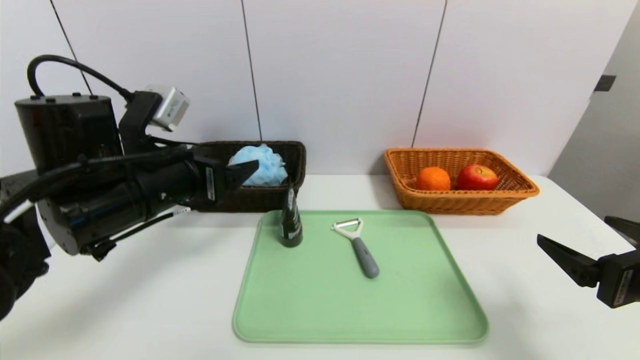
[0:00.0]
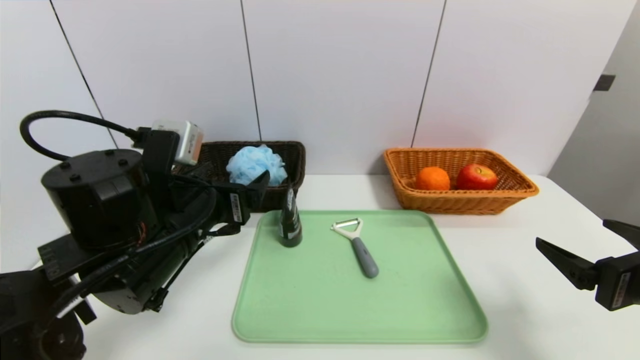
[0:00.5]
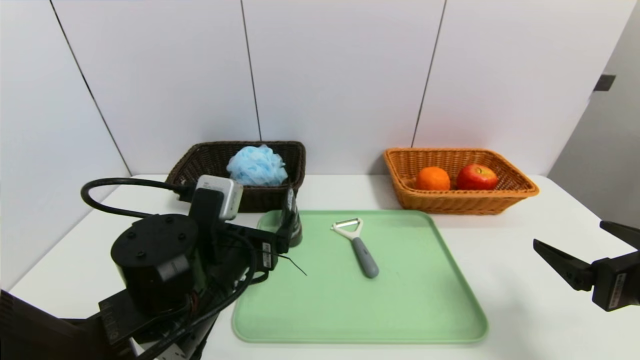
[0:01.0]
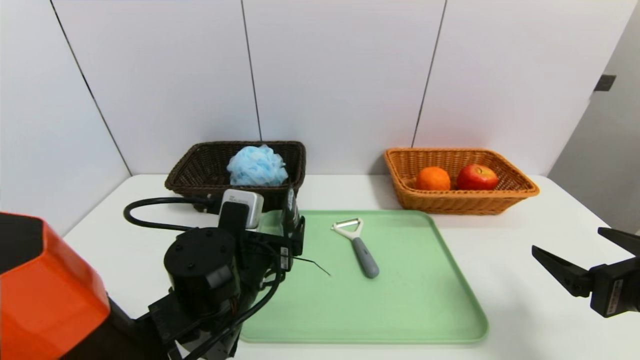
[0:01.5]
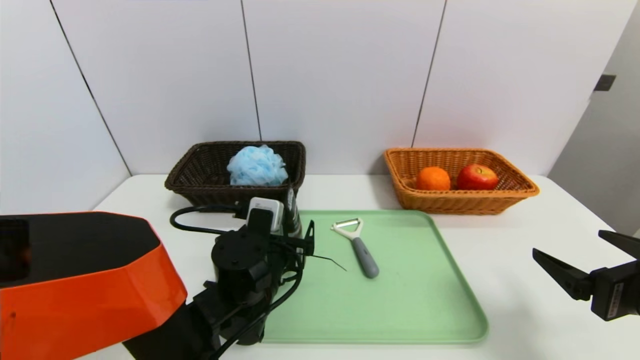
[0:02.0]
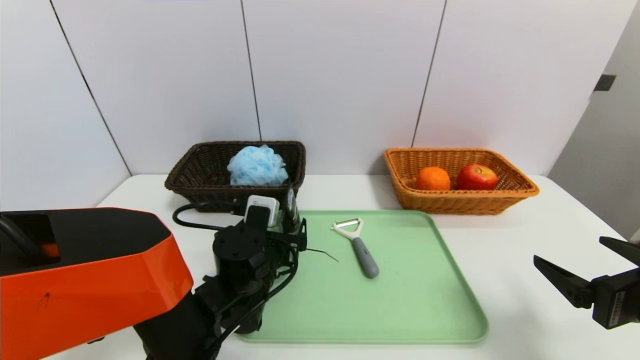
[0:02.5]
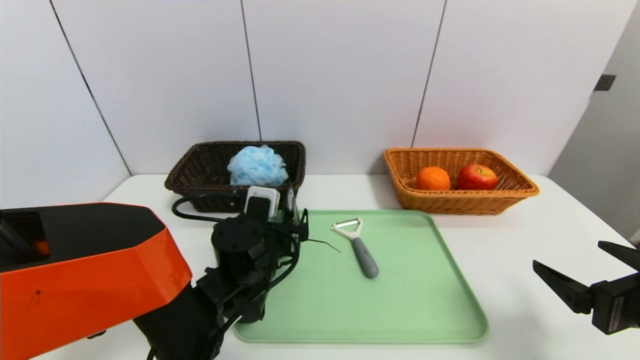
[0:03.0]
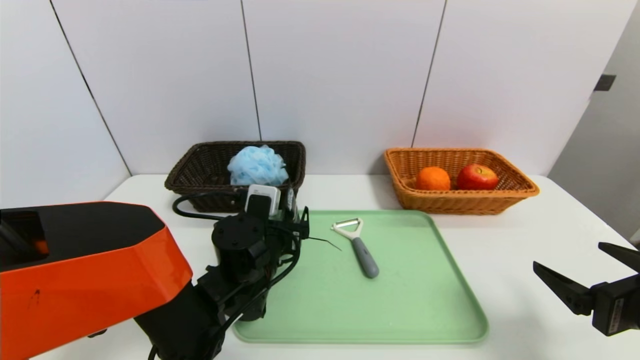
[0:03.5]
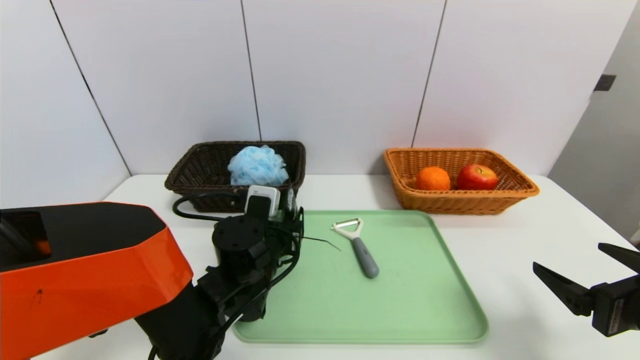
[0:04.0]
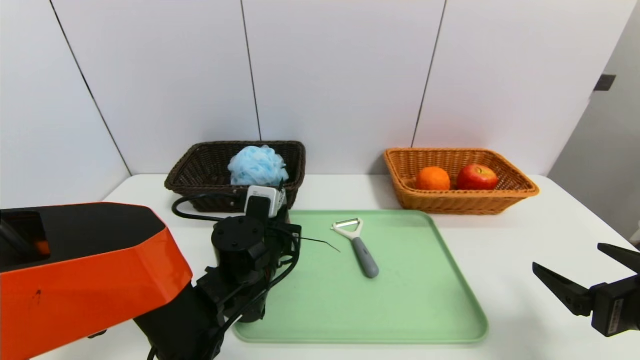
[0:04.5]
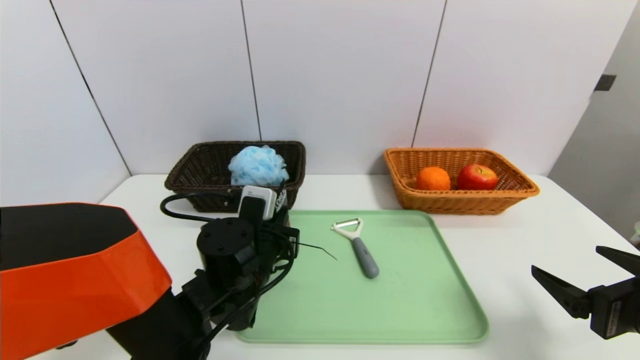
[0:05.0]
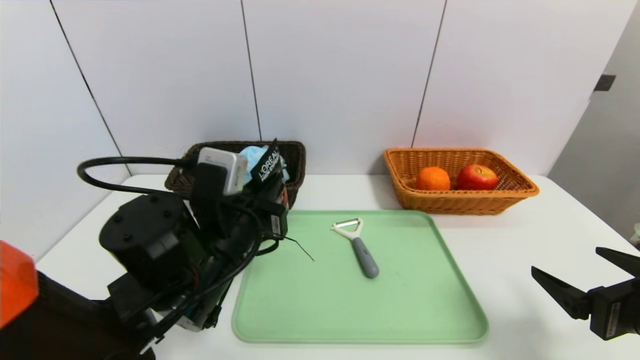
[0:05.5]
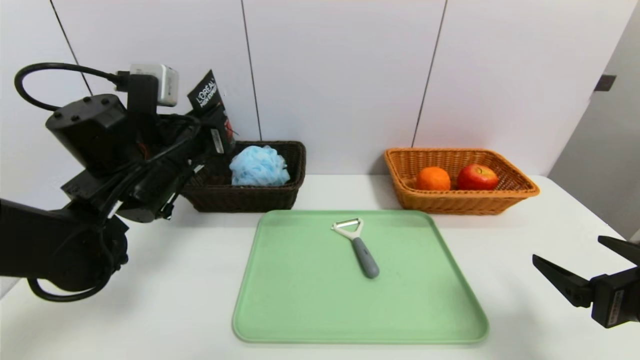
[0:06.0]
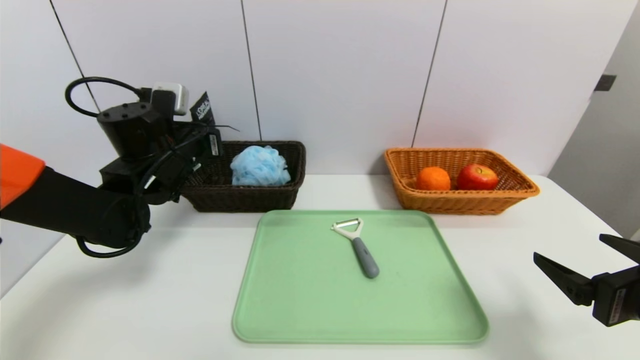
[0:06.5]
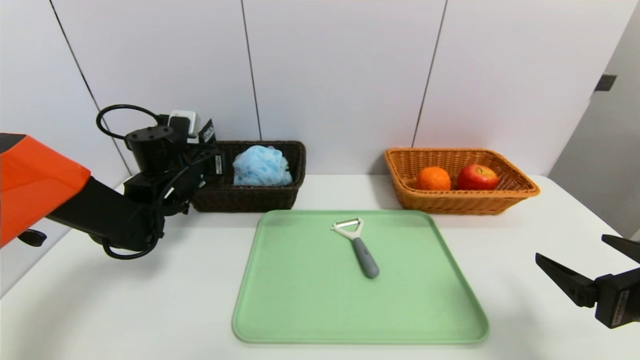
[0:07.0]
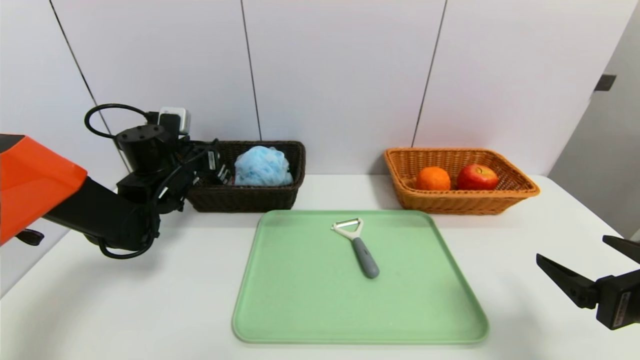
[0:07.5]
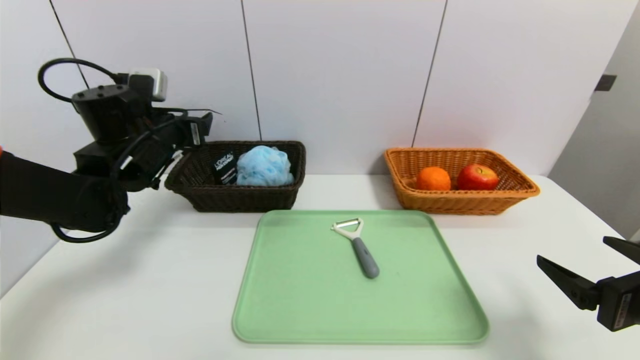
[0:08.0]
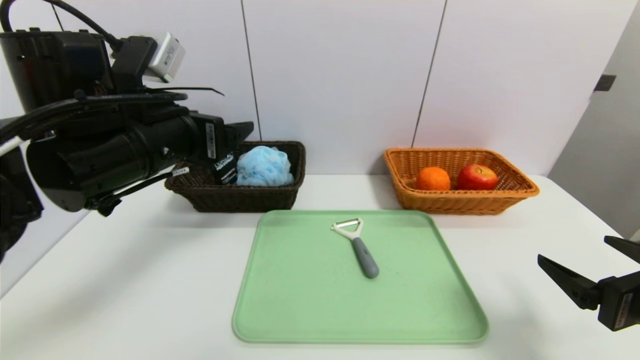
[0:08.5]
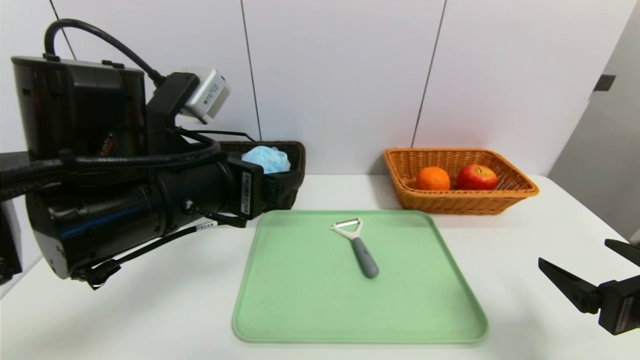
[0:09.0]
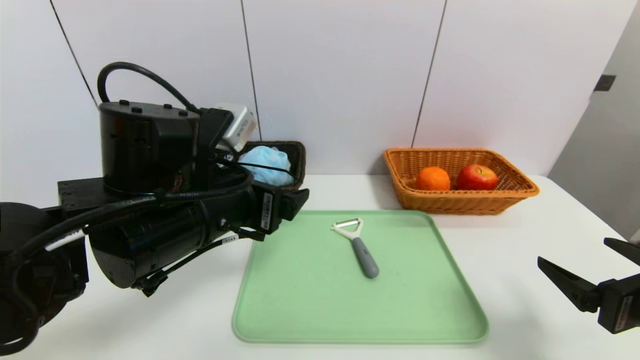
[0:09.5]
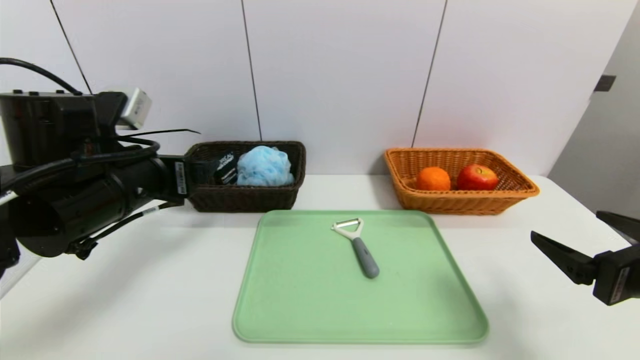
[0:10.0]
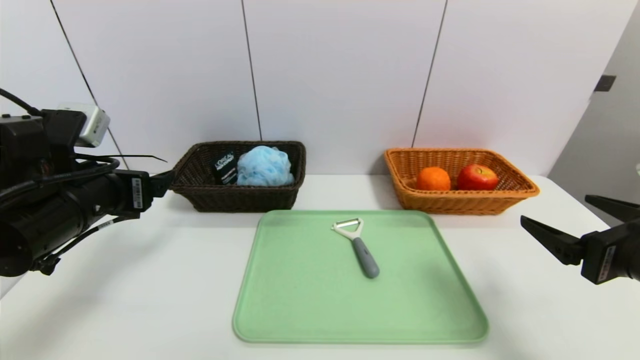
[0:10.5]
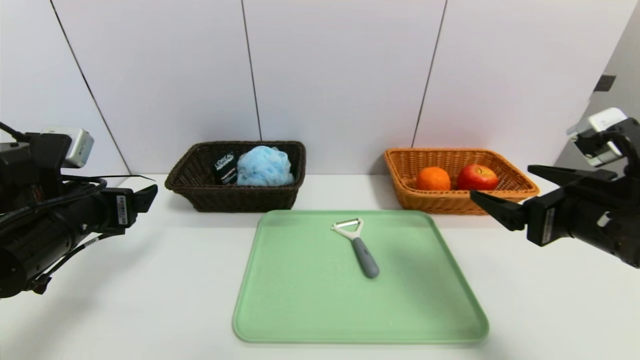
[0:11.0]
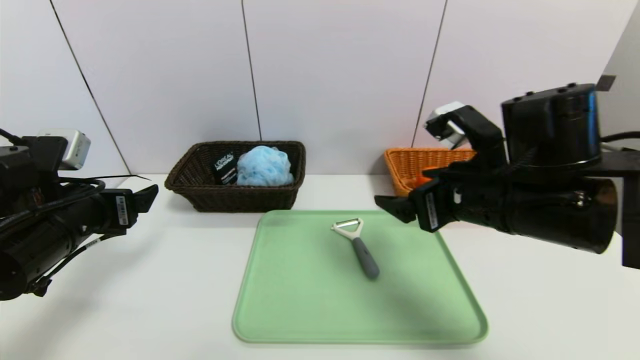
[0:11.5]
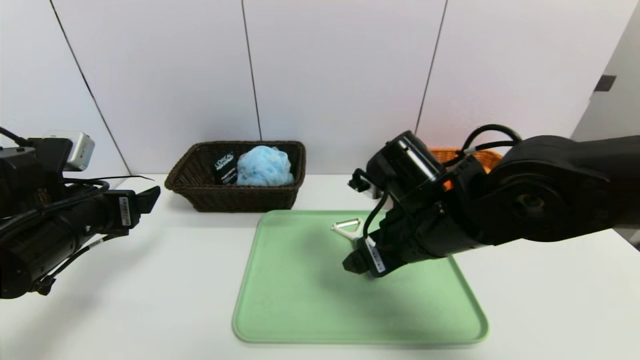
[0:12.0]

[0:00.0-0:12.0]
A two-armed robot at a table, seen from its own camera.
Task of the whole recording: place the food in the right basket with the right gripper, and place the non food items in the left basket with the left gripper.
Step, 0:00.0 to 0:08.0: Grasp the soft cleanser and put it in the left basket.
0:00.0 to 0:02.0: The left gripper travels downward and to the right by some 20 cm.
0:02.0 to 0:04.0: The grippers make only small movements.
0:04.0 to 0:06.0: The left gripper moves upward and to the left, roughly 20 cm, and closes up.
0:06.0 to 0:08.0: The left gripper moves forward and to the left, about 5 cm, and opens its fingers.
0:08.0 to 0:10.0: The left gripper goes approximately 10 cm backward.
0:10.0 to 0:12.0: The left gripper moves to the left, about 5 cm, while the right gripper heads to the left and forward, covering approximately 25 cm.

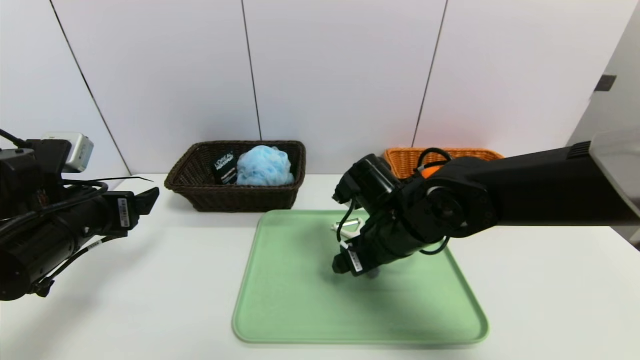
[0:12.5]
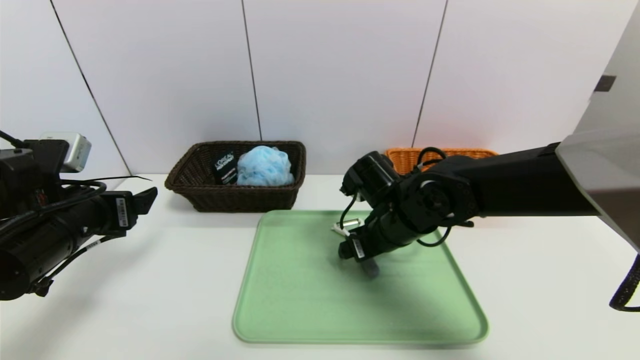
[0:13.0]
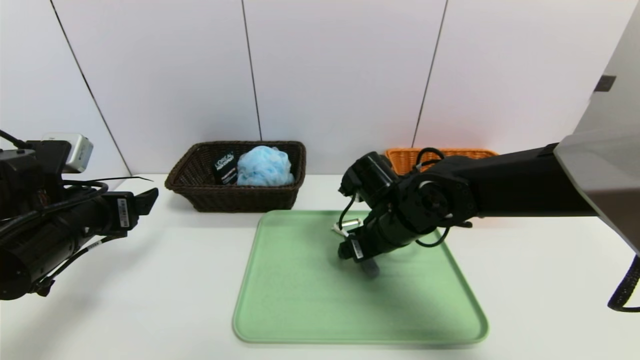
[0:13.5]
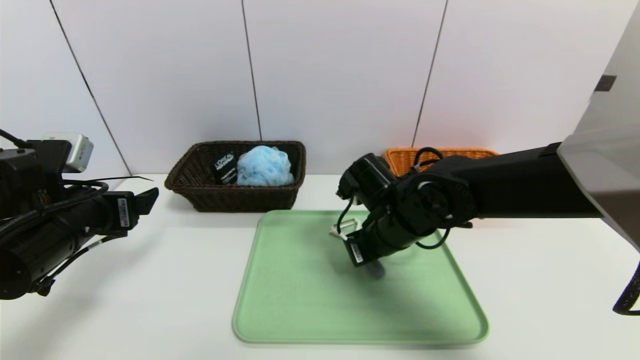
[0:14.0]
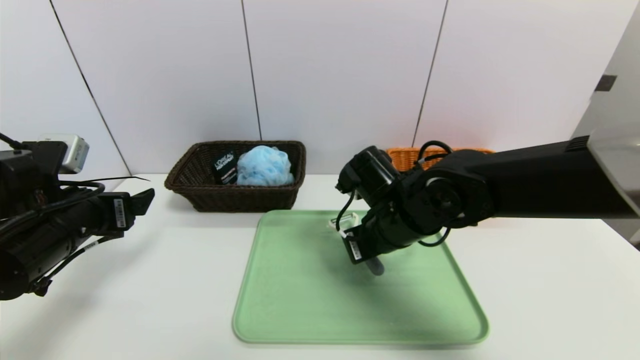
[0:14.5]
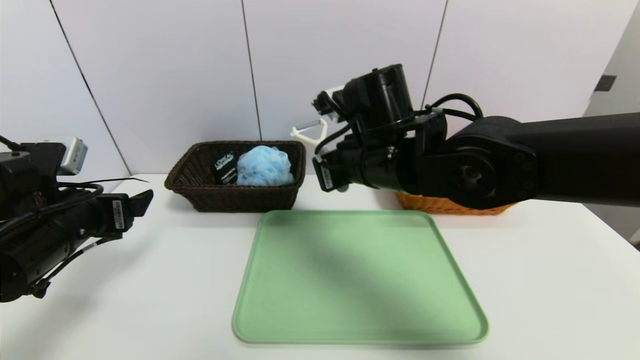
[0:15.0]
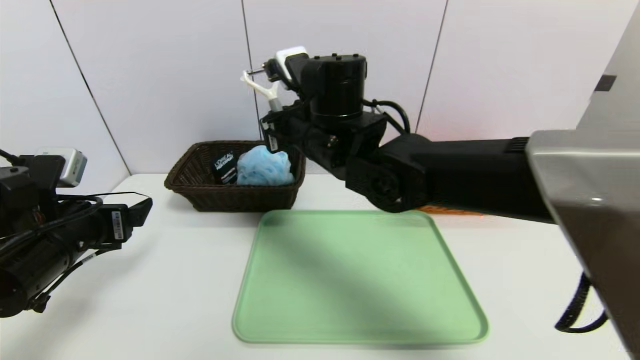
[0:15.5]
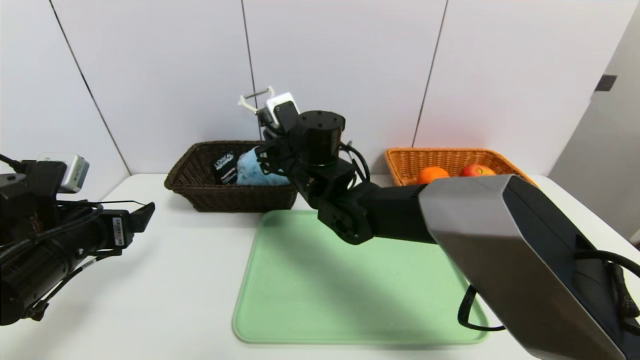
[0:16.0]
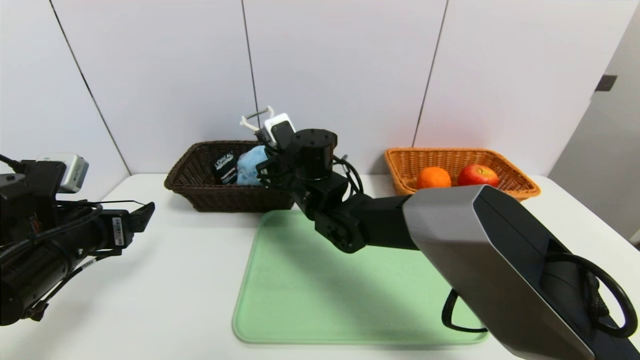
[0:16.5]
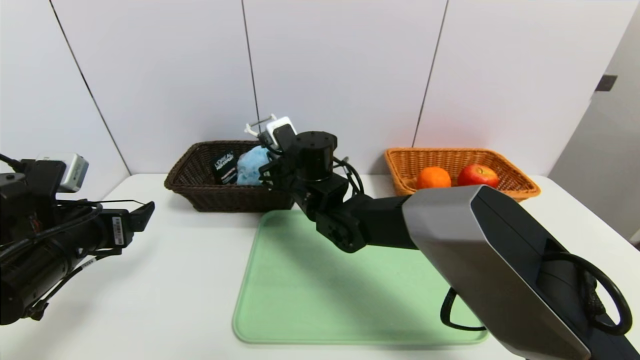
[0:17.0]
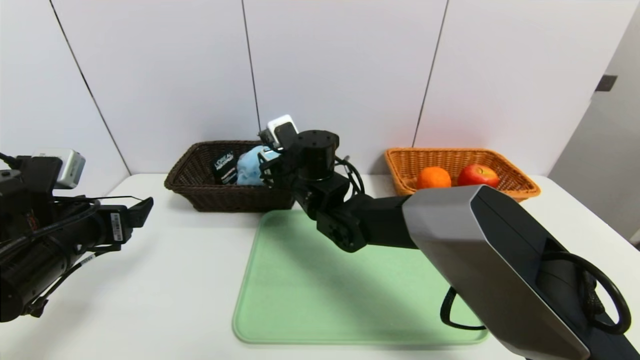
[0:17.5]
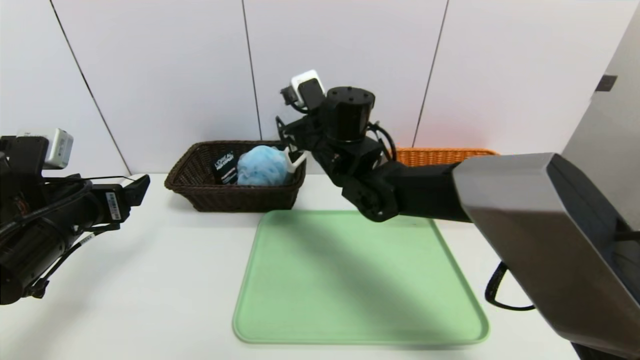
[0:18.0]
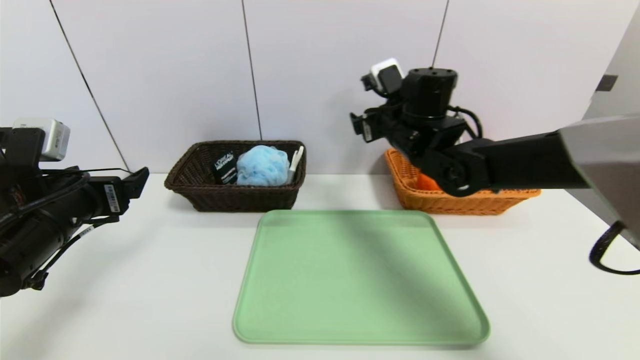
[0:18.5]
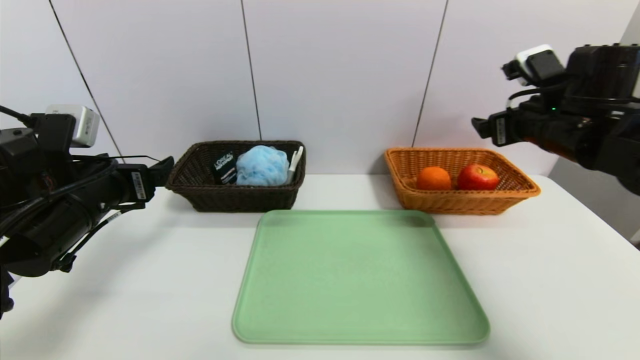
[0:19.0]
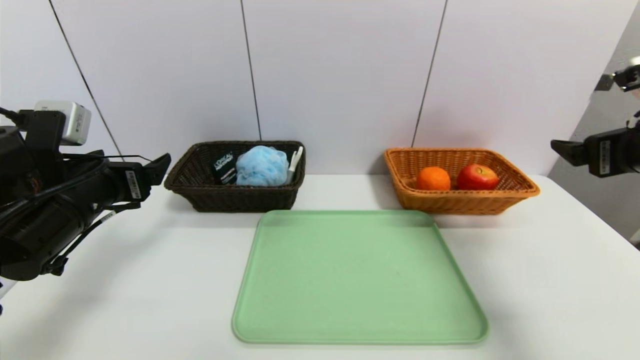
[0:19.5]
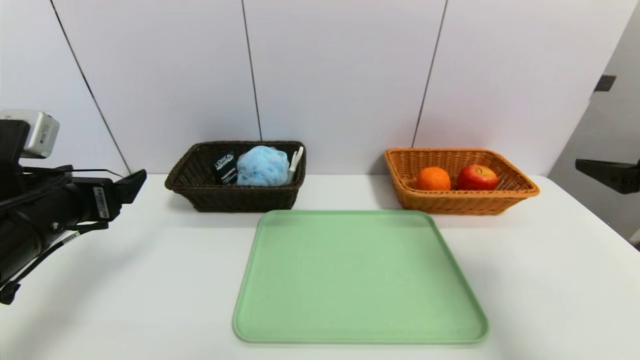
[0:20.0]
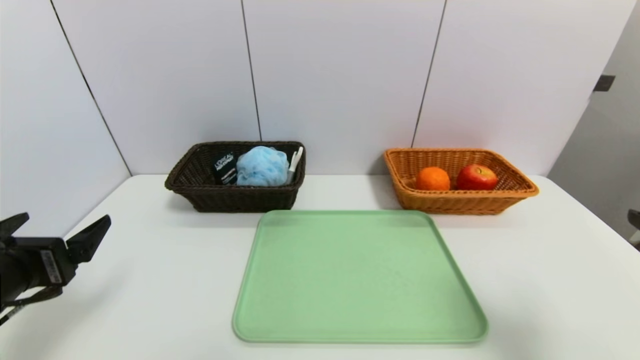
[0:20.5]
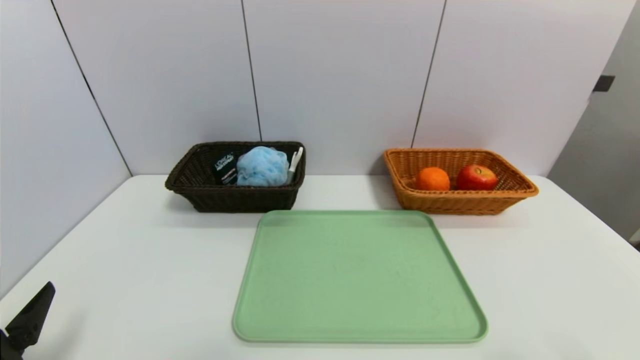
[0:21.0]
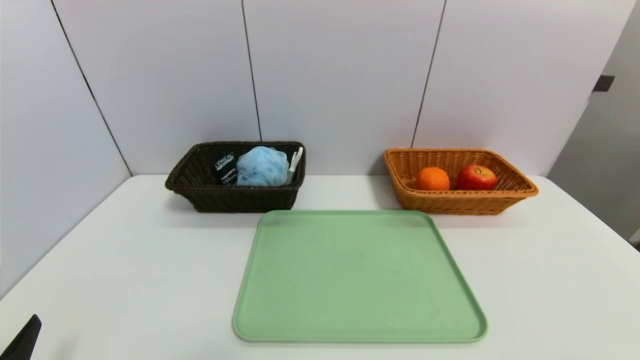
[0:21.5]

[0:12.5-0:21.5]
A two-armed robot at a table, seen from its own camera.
Task of the whole recording: place the food in the right basket with the right gripper, and place the non food items in the left basket with the left gripper.
0:12.5 to 0:14.5: The right gripper closes.
0:14.5 to 0:17.0: The right gripper moves to the left and forward, some 15 cm.
0:17.0 to 0:19.5: The left gripper ends up roughly 5 cm from where it was. Meanwhile the right gripper shifts approximately 40 cm to the right and backward, and opens up.
0:19.5 to 0:21.5: The left gripper is displaced backward and downward by approximately 25 cm; the right gripper goes roughly 25 cm backward.
